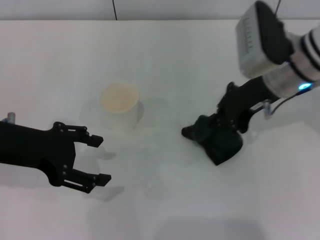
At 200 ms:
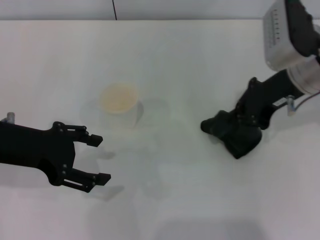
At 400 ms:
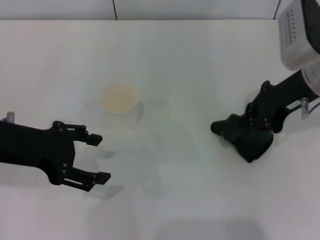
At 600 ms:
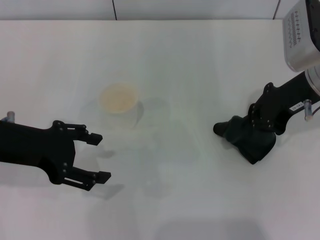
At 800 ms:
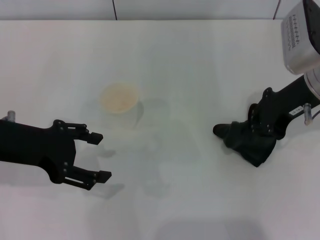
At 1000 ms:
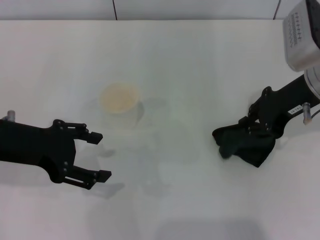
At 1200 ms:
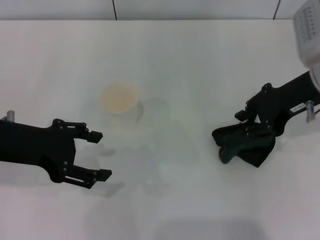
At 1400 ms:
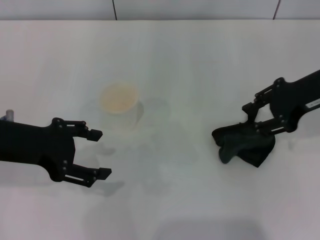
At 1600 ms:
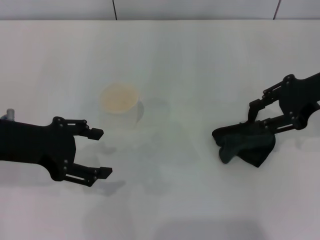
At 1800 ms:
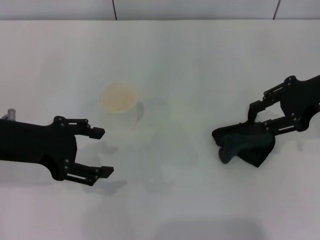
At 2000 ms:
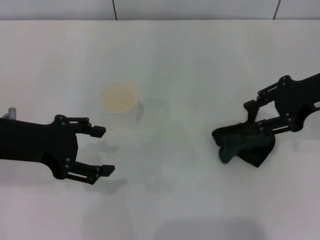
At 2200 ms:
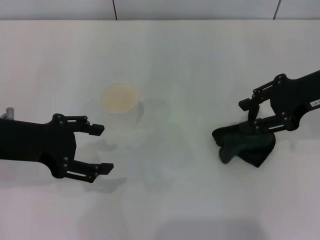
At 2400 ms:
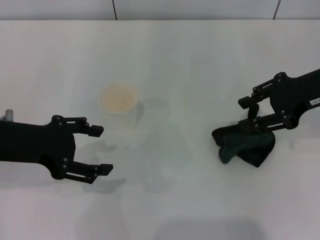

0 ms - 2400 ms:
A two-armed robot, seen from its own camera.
Step, 1000 ms - 1800 ms: Place the rag on the table with the right gripper.
0 ms - 1200 ms: The right gripper shifts about 5 cm to the right.
1200 ms - 2400 ms: The grippers stay close to where they were, moving slightly.
